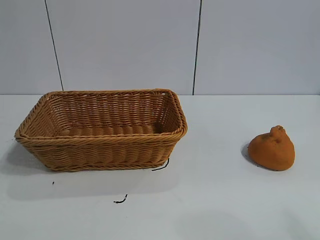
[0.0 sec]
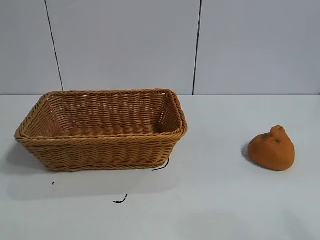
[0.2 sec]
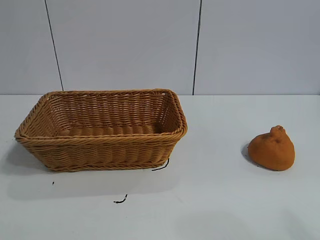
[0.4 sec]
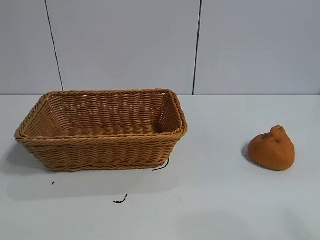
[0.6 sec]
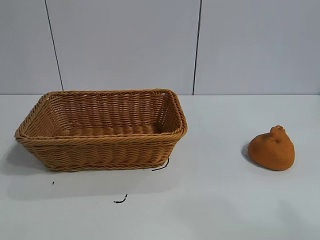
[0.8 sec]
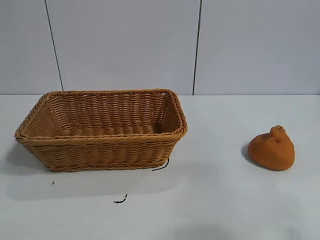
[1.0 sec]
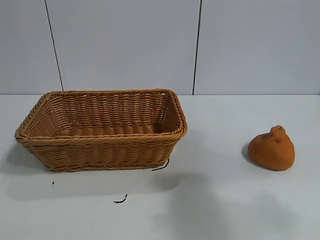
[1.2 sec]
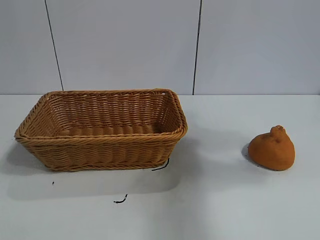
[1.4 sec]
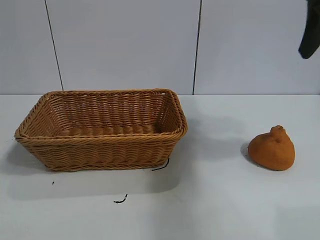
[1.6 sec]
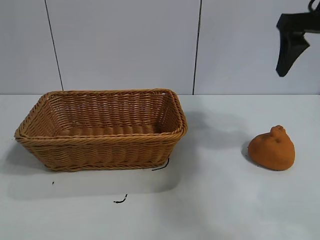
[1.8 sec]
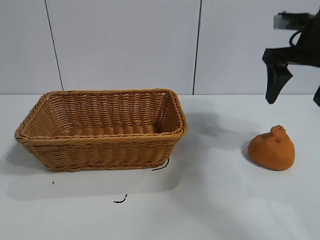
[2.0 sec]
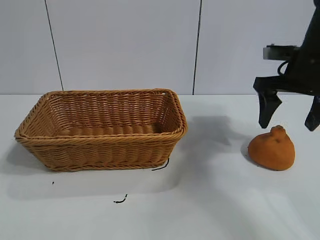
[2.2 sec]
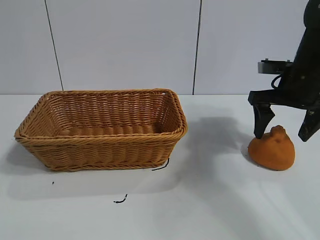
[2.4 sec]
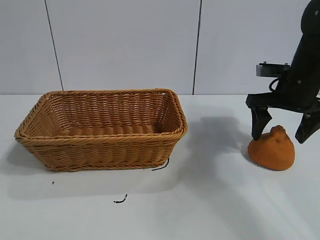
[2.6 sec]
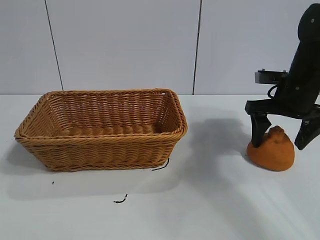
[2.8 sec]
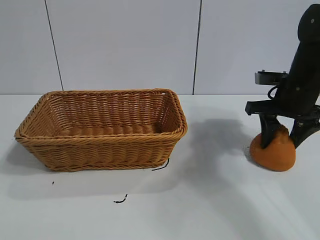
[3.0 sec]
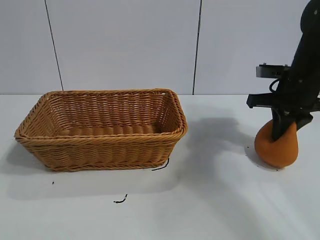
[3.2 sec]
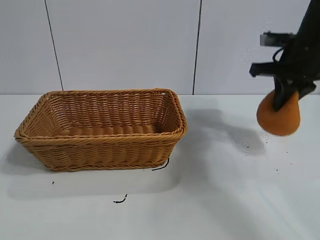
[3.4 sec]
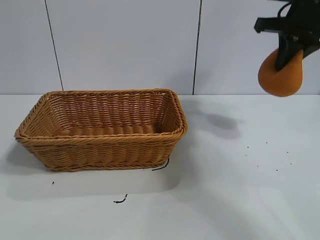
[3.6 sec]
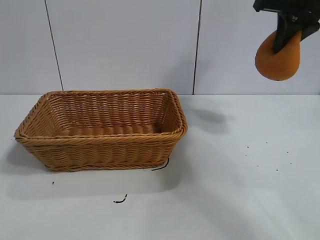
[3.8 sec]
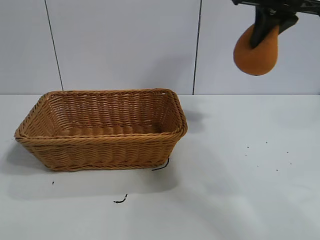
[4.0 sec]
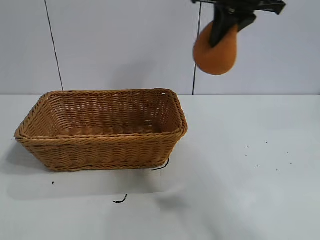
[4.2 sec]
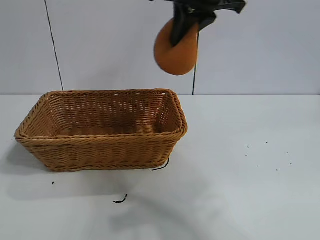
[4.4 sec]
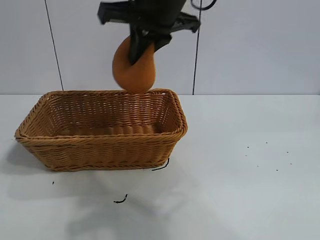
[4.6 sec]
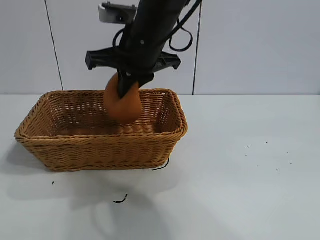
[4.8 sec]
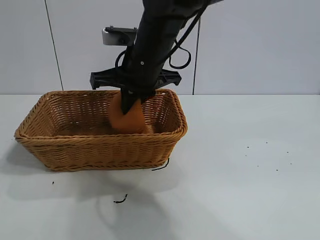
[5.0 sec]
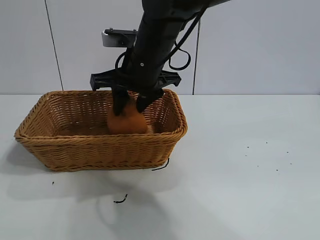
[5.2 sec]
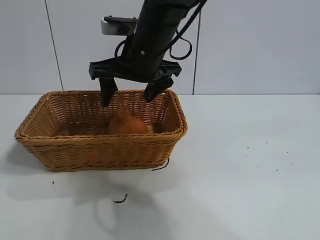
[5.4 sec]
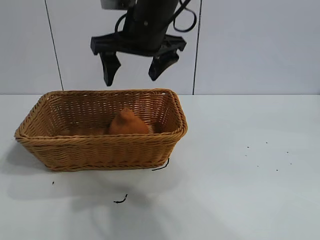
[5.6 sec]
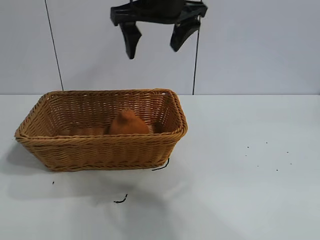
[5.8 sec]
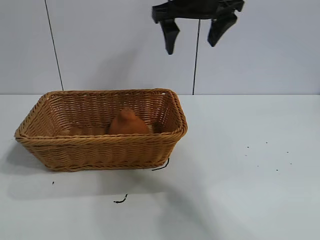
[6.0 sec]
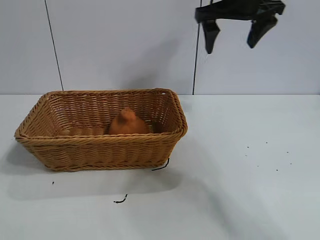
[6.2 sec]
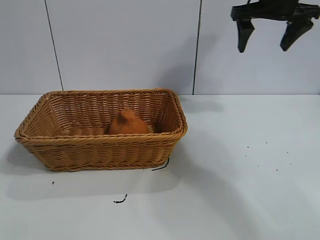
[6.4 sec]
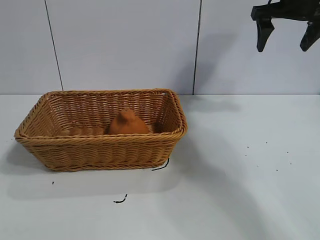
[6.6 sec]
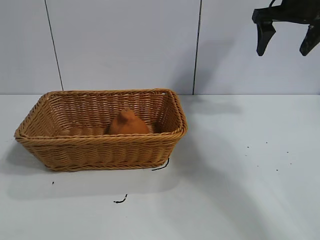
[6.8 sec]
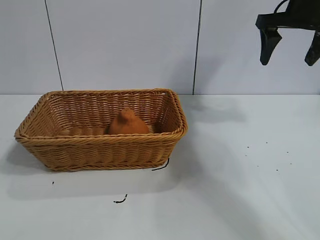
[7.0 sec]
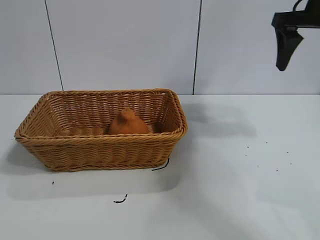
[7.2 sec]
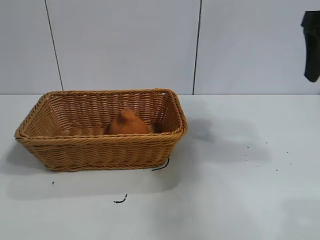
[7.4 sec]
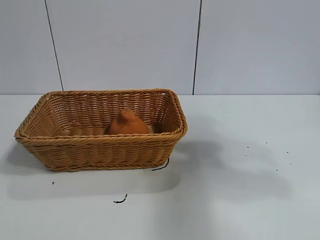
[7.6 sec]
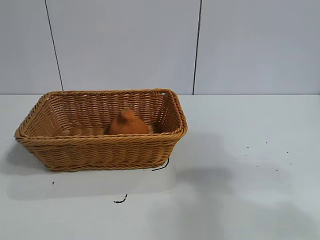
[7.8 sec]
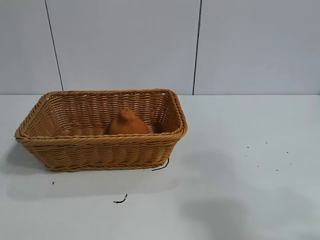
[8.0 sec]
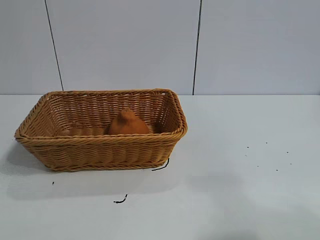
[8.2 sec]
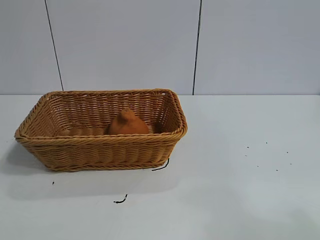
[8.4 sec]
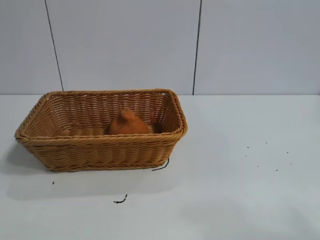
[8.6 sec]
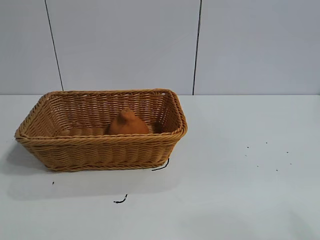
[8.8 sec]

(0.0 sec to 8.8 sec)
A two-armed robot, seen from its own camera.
Task of the whole recording: pick up the orange and put it into the basket.
Step, 0.6 sec - 3.2 sec: Grasp the orange with right gripper.
Step, 3.4 sec - 5.2 sec: Place the orange in the basket with right gripper.
